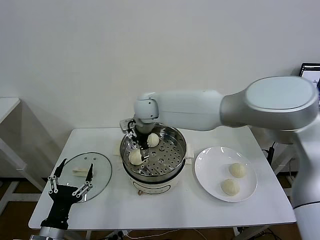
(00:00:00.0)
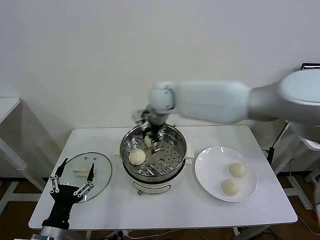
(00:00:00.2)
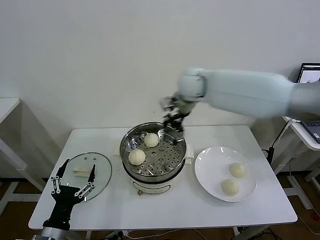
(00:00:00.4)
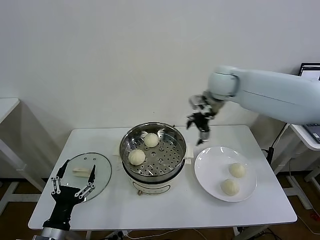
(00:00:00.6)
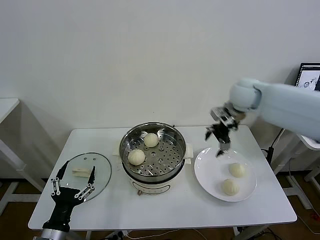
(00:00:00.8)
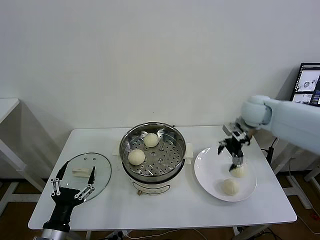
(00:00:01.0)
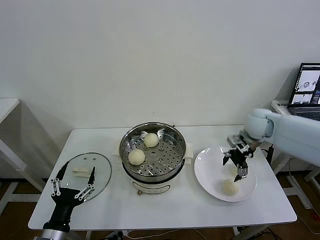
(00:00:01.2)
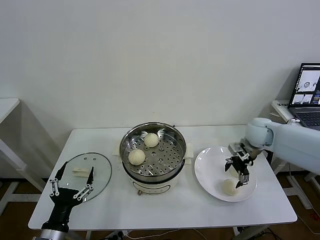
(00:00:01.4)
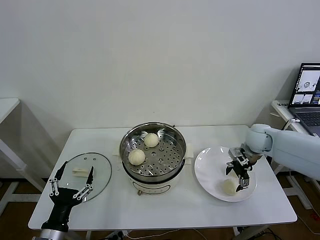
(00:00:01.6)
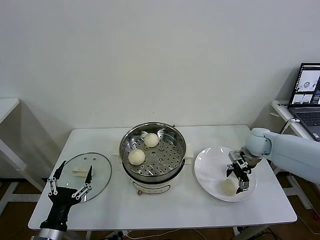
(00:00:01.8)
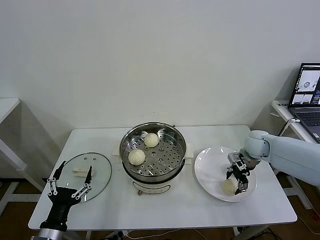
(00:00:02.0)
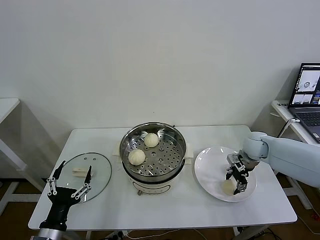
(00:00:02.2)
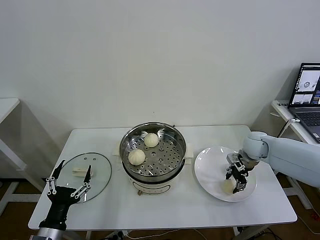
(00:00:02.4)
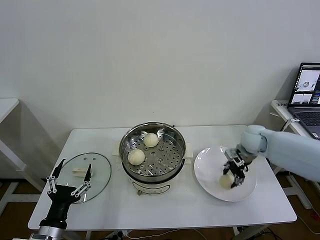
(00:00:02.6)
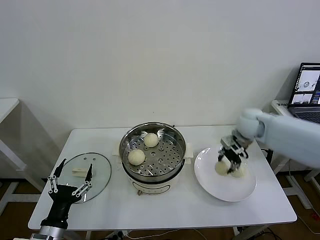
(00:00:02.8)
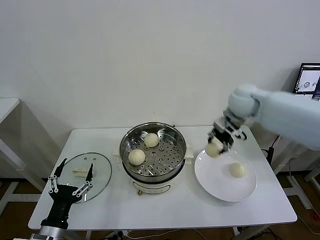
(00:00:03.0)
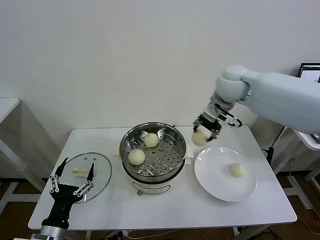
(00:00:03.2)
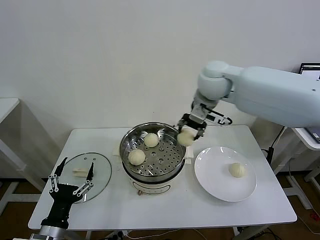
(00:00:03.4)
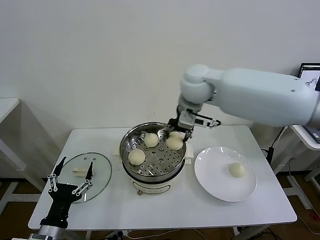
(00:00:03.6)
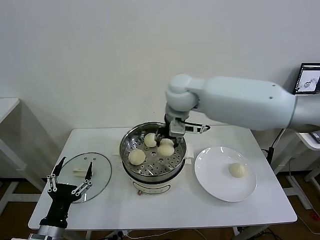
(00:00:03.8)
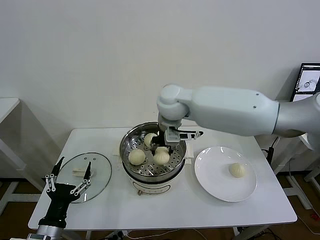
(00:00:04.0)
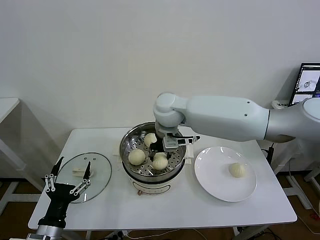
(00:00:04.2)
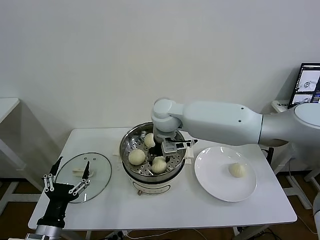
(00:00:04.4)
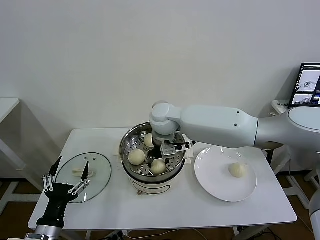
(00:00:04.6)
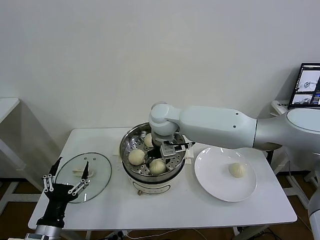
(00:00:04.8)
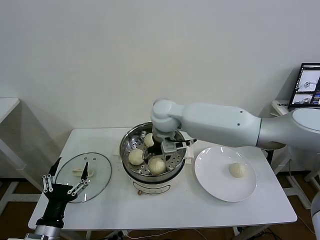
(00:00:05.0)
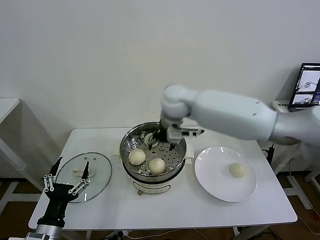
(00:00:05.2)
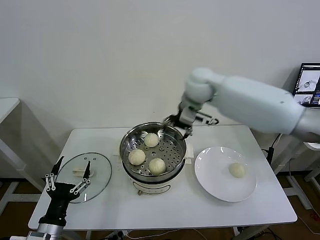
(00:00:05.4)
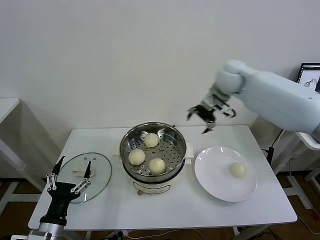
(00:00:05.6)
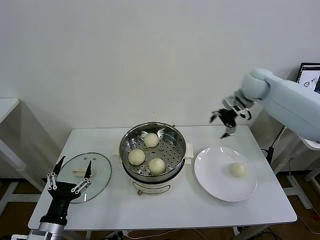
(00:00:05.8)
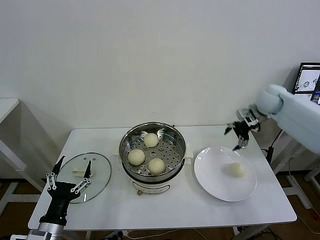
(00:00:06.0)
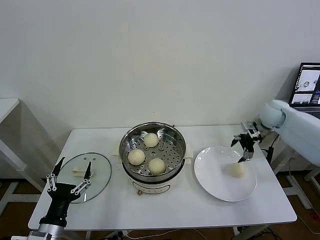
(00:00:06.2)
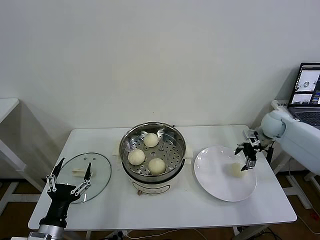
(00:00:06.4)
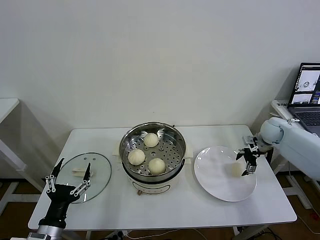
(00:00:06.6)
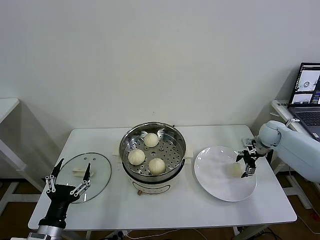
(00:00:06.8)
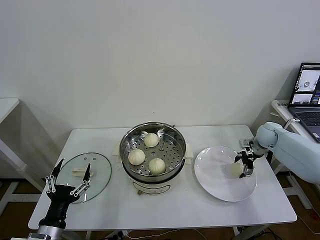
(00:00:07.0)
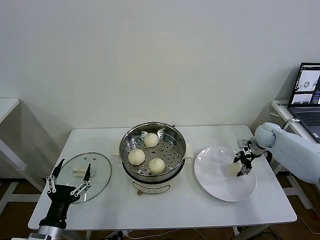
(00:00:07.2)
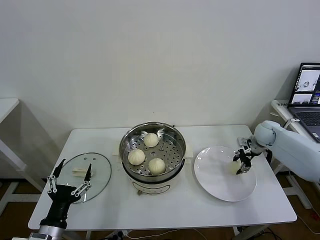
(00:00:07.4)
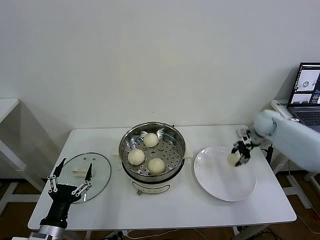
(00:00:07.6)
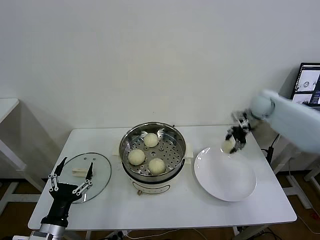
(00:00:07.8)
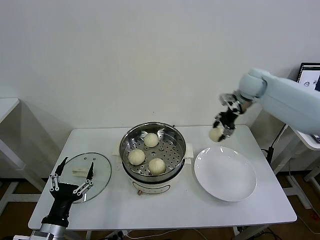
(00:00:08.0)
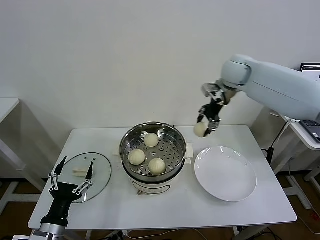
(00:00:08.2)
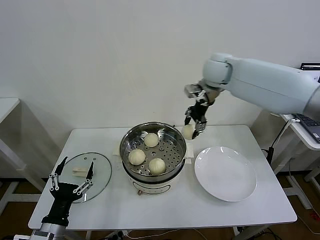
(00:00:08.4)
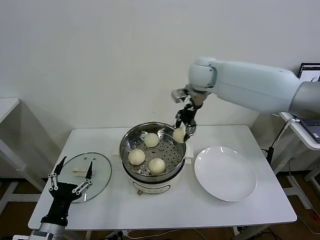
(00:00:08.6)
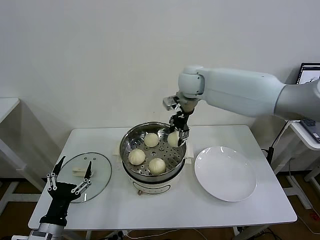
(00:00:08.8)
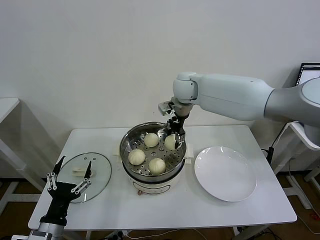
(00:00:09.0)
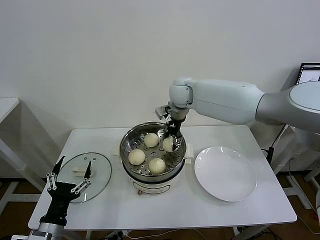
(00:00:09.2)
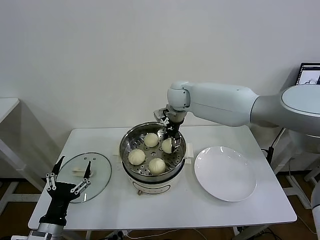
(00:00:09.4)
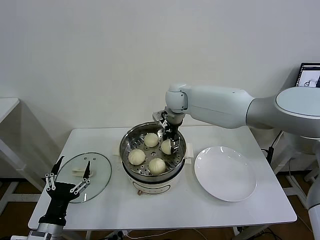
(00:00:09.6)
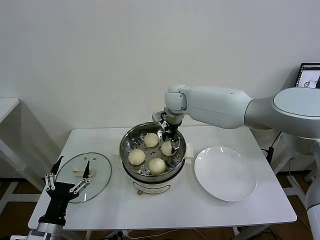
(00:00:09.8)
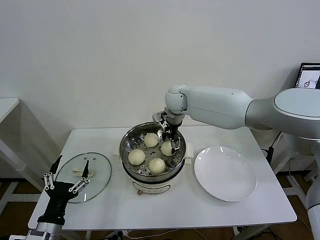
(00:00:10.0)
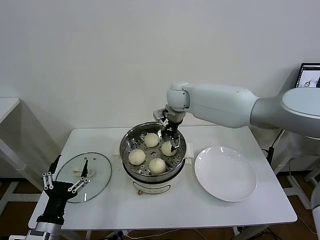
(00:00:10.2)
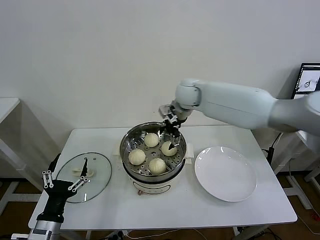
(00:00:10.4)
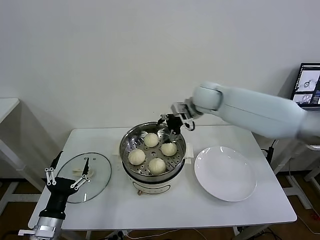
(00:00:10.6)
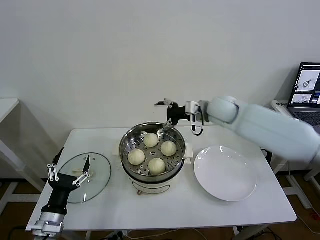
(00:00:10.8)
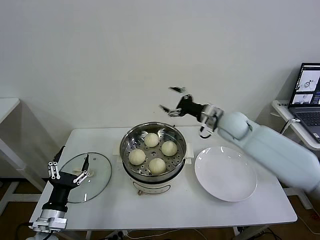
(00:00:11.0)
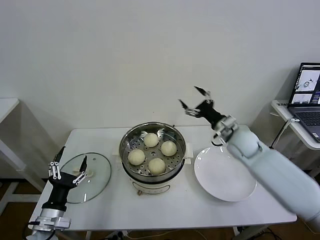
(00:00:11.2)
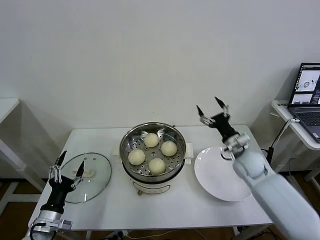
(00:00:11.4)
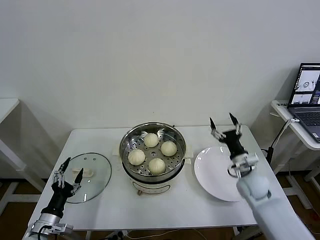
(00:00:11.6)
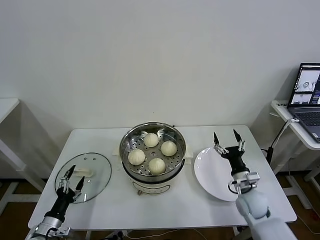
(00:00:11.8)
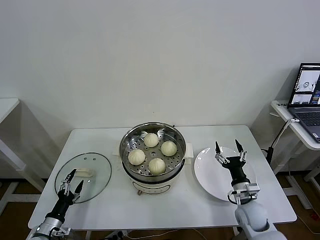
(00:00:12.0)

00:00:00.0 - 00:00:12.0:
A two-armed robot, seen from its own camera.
Task of the whole recording: take steamed baozi put them in steamer then cover it.
Step, 00:00:00.0 - 00:00:02.0: Grasp the baozi in the plate with right gripper.
Step, 00:00:02.4 - 00:00:04.8: Place the baozi on the steamer with right gripper.
Step, 00:00:05.2 - 00:00:07.2: Grasp the baozi in the plate with right gripper.
Step, 00:00:07.4 - 00:00:10.0: Place the baozi on the steamer with right gripper.
00:00:00.0 - 00:00:01.6: The right gripper heads to the right, covering approximately 40 cm.
00:00:01.6 - 00:00:03.0: The right gripper goes approximately 20 cm upward and to the left, and closes up.
00:00:03.0 - 00:00:04.4: The right gripper shifts roughly 25 cm to the left.
00:00:04.4 - 00:00:06.0: The right gripper heads to the right, covering roughly 35 cm, and opens its fingers.
00:00:06.0 - 00:00:07.6: The right gripper moves downward, approximately 10 cm, and closes.
00:00:07.6 - 00:00:09.0: The right gripper is displaced to the left and upward by approximately 35 cm.
00:00:09.0 - 00:00:10.4: The right gripper opens.
00:00:10.4 - 00:00:12.0: The right gripper is displaced downward, backward and to the right by roughly 50 cm; the left gripper goes roughly 15 cm downward and to the left.

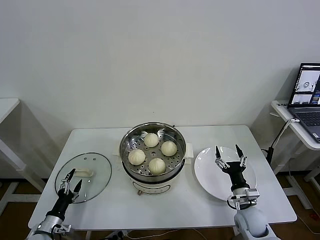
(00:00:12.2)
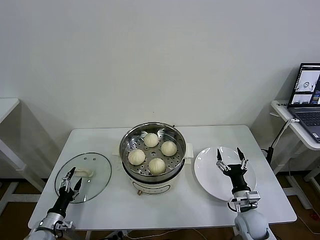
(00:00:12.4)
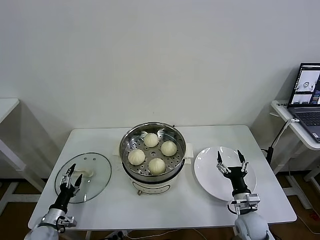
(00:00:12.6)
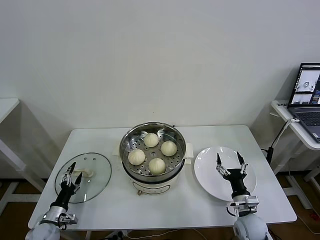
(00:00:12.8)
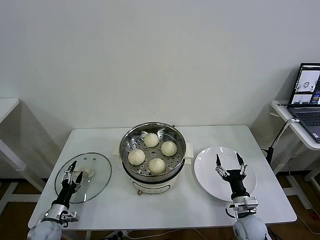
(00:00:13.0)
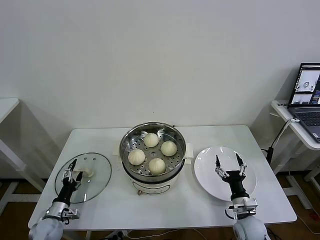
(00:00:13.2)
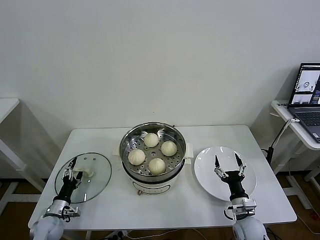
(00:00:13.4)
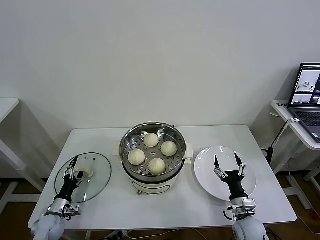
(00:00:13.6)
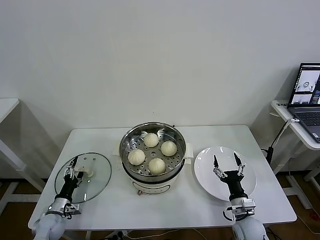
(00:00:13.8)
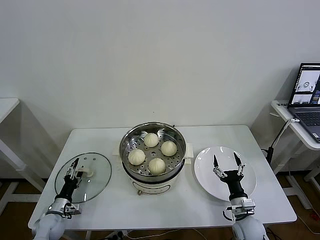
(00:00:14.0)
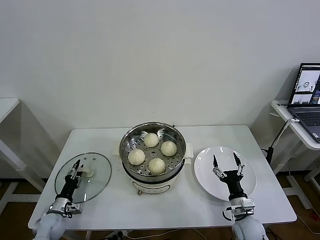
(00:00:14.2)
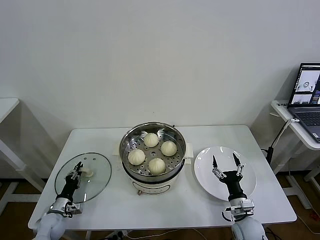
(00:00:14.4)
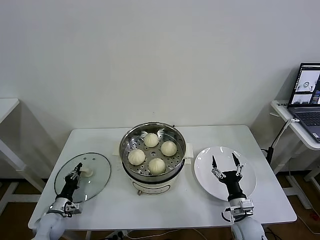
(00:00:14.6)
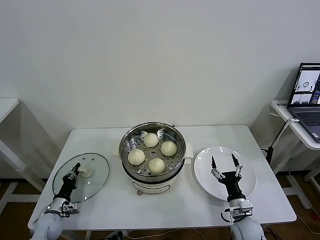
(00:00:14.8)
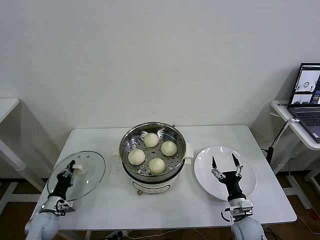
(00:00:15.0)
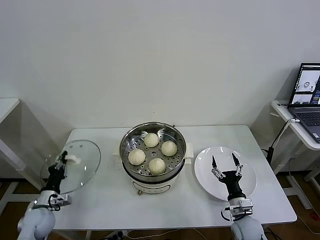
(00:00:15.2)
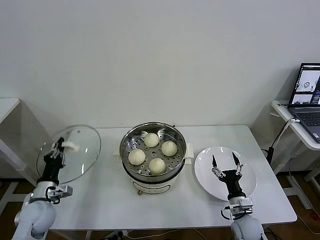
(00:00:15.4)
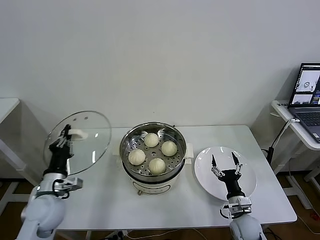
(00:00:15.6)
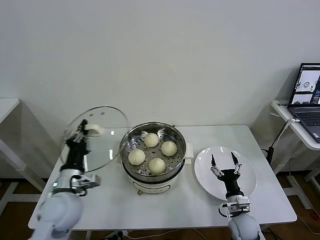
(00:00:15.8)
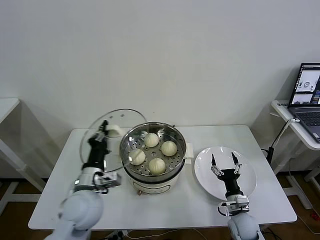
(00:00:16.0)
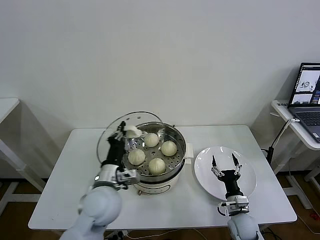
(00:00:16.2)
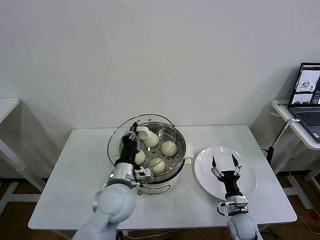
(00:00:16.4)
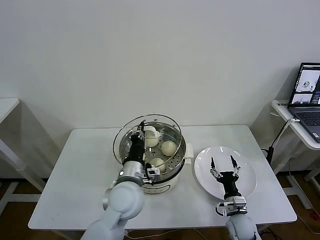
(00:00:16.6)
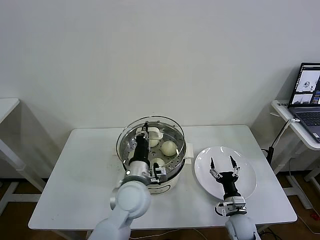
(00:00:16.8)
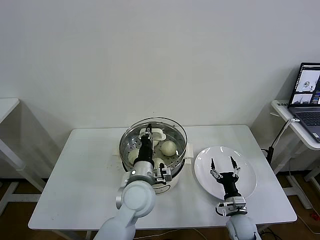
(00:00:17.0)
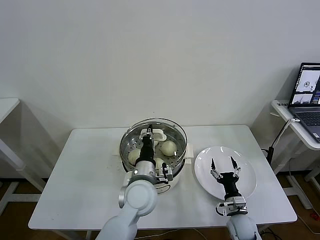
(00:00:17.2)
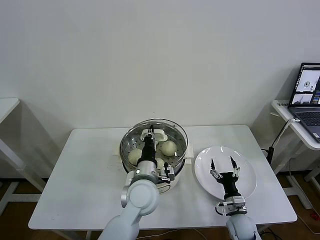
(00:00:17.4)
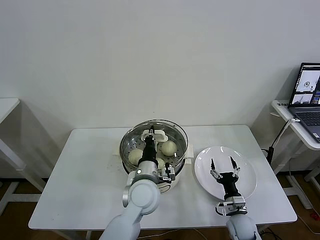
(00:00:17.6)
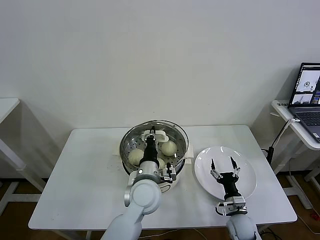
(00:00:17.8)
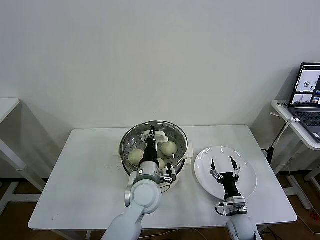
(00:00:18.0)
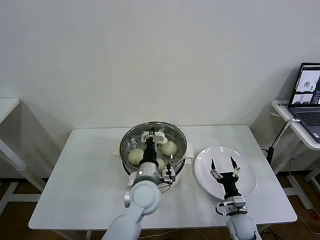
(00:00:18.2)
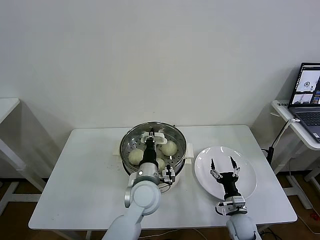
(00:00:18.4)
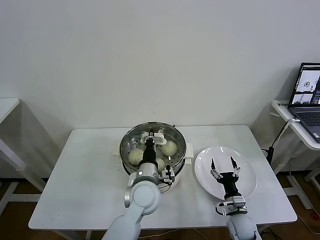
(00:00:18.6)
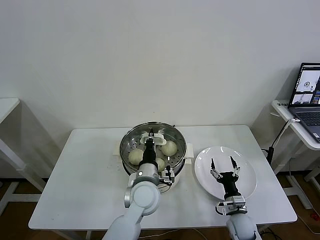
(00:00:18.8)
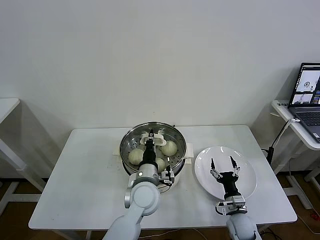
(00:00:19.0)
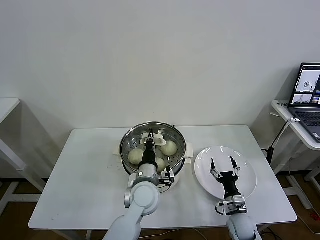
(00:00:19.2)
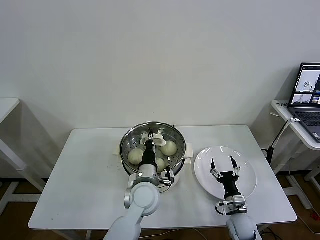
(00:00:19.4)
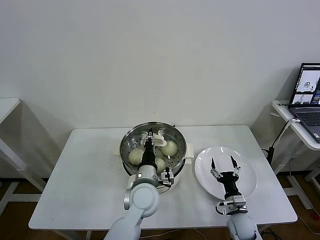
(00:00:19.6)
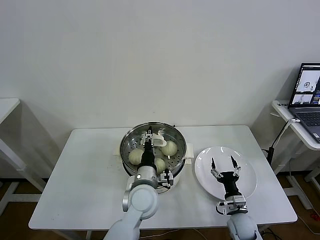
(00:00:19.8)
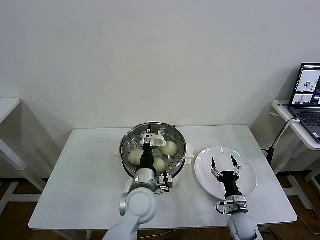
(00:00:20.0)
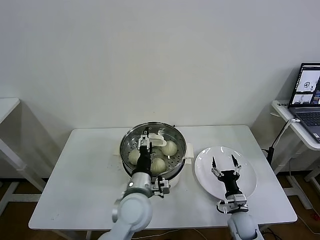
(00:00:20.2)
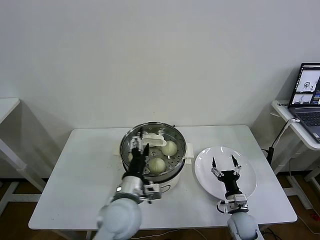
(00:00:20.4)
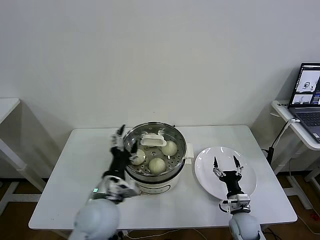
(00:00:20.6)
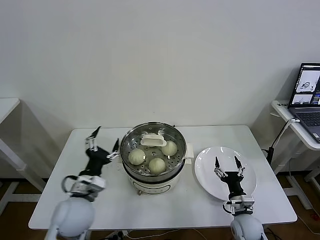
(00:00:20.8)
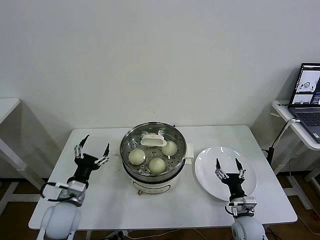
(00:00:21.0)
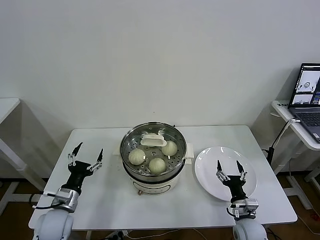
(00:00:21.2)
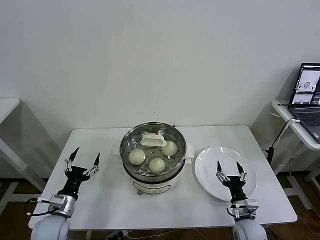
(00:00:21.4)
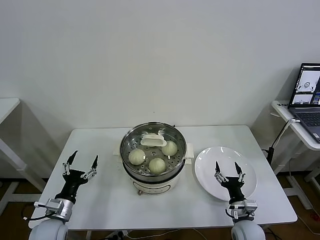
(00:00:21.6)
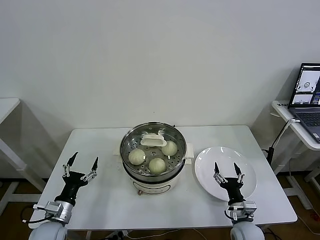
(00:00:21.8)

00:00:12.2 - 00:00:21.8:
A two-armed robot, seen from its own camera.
Task of the whole recording: take steamed baozi put them in steamer then cover it.
Step, 00:00:12.2 - 00:00:14.6: Grasp the baozi in the plate with right gripper.
00:00:12.2 - 00:00:13.8: The left gripper heads forward, covering approximately 5 cm.
00:00:13.8 - 00:00:15.4: The left gripper moves upward, some 15 cm, and closes up.
00:00:15.4 - 00:00:17.0: The left gripper is displaced to the right by roughly 35 cm.
00:00:17.0 - 00:00:18.6: The grippers make only small movements.
00:00:18.6 - 00:00:20.2: The left gripper opens up.
00:00:20.2 - 00:00:21.8: The left gripper goes some 30 cm to the left.
